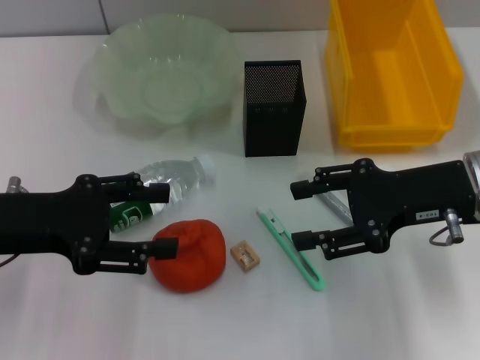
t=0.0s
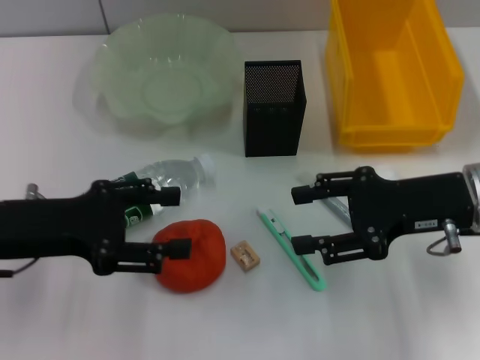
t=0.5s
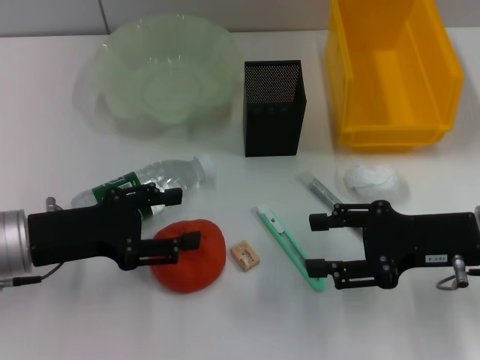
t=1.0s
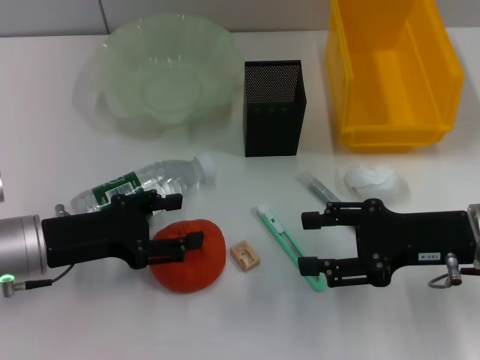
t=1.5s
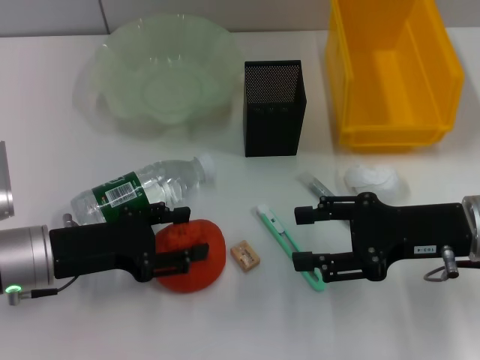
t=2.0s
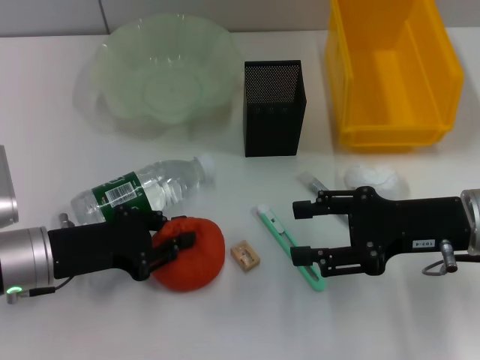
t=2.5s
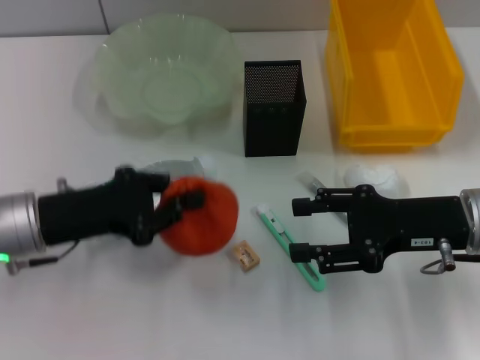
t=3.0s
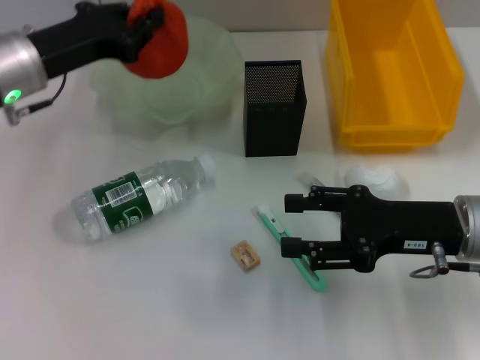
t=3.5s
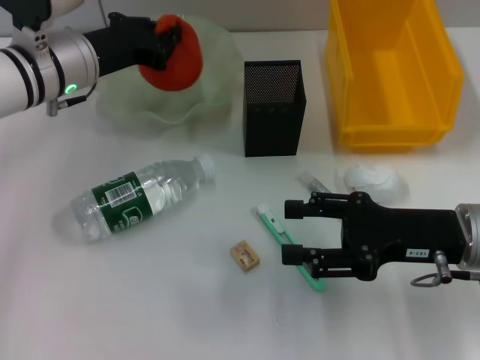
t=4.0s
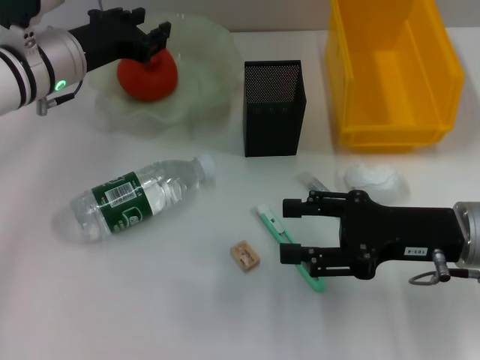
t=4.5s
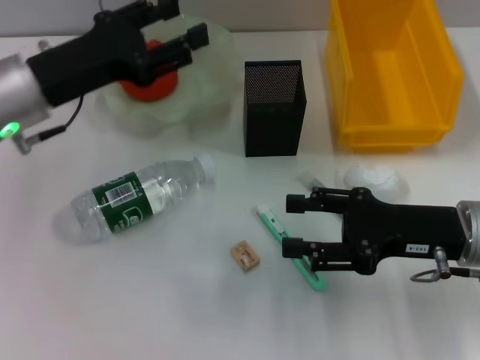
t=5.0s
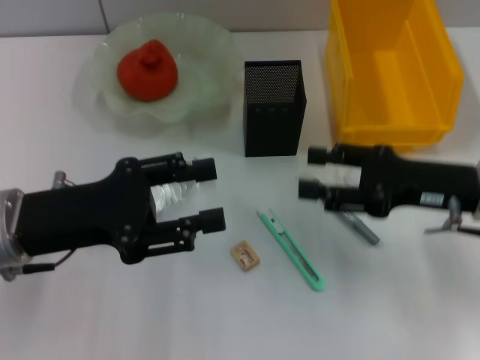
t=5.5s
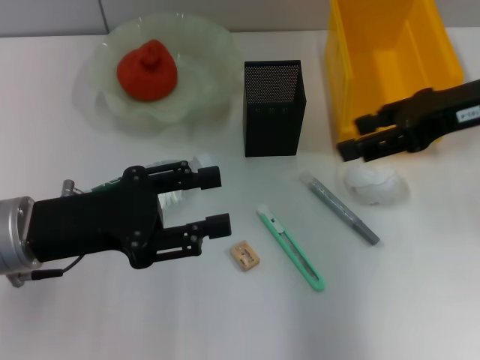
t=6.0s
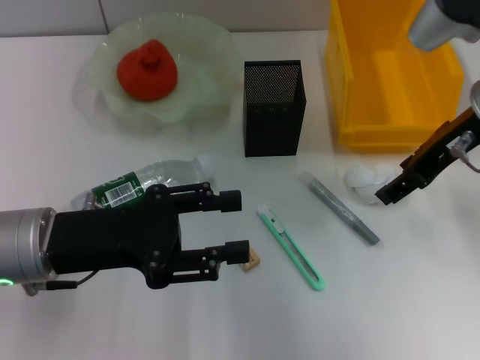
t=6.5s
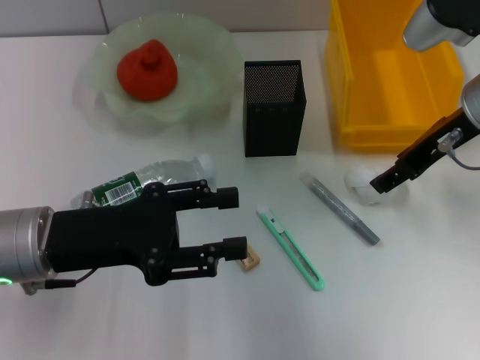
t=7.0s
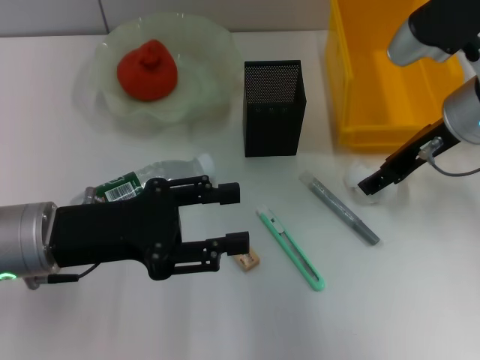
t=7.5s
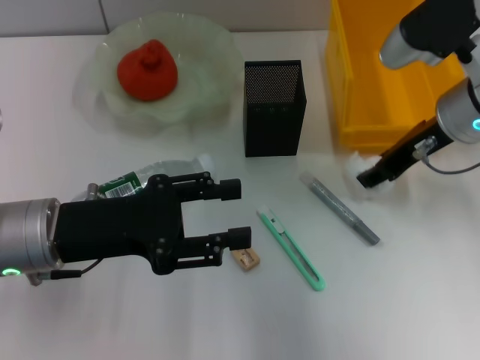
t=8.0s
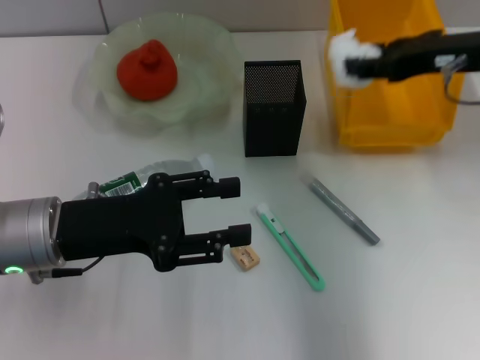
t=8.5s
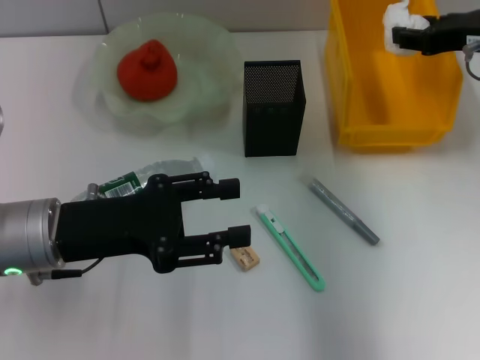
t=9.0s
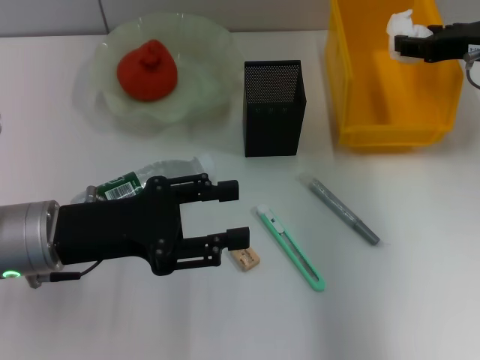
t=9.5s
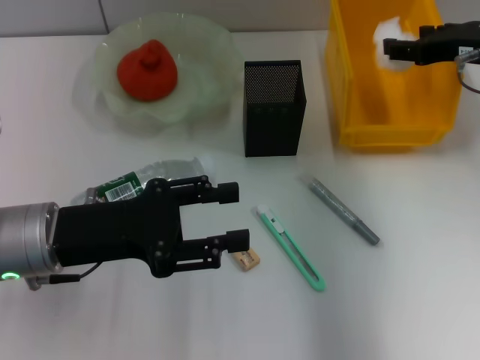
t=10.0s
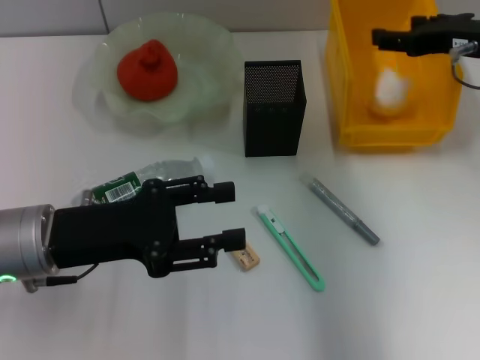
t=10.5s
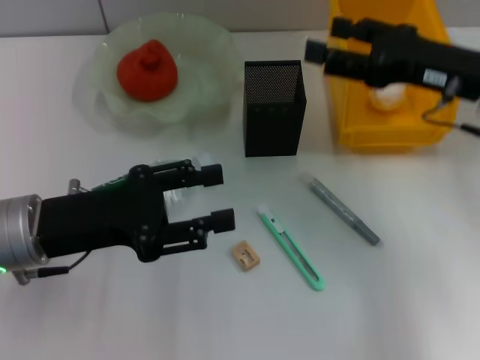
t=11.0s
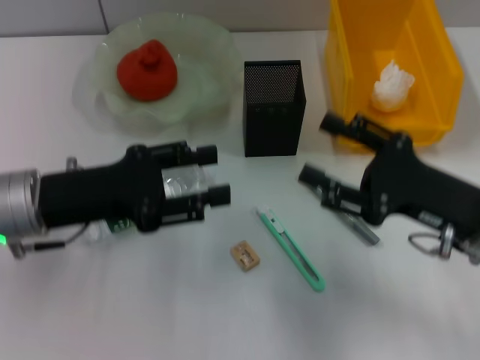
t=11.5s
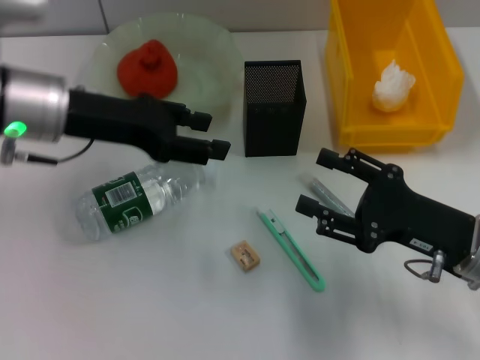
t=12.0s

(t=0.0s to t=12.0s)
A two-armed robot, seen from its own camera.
Step, t=0.0s - t=2.0s: Grab the orange with the left hand.
Step, t=2.5s - t=4.0s: Place the orange into the fruit bowl with the left hand.
Step, t=4.5s - t=7.5s: Grab the paper ball with the right hand.
Step, t=8.0s - t=10.5s: Place the paper ball into the trash can with the right hand.
t=0.0s - t=2.0s: The left gripper heads downward, covering about 10 cm.
t=2.0s - t=4.0s: The left gripper is displaced forward and upward by some 15 cm, and closes its fingers.
t=4.0s - t=6.0s: The left gripper shifts some 15 cm backward, and opens its fingers. Meanwhile the right gripper is displaced upward and forward by approximately 15 cm.
t=6.0s - t=8.0s: The right gripper moves downward, some 5 cm.
t=8.0s - t=10.0s: The right gripper is displaced to the right by some 5 cm.
t=10.0s - t=12.0s: The left gripper is displaced forward and upward by approximately 10 cm. The right gripper travels backward and downward by roughly 20 cm.

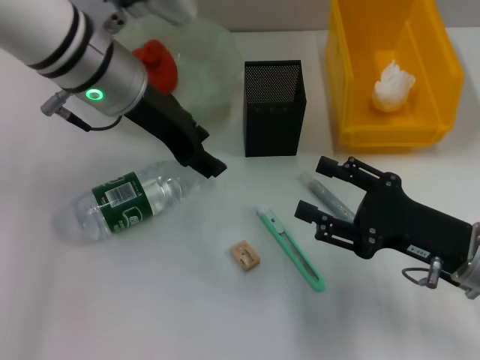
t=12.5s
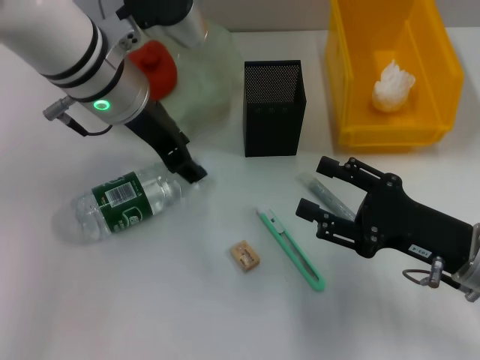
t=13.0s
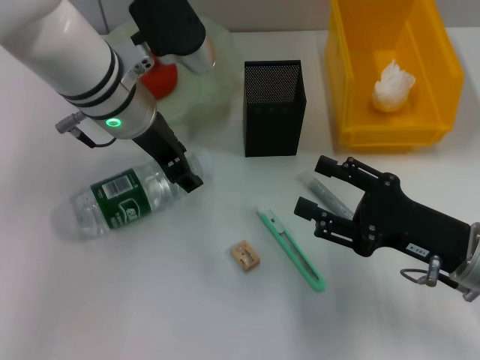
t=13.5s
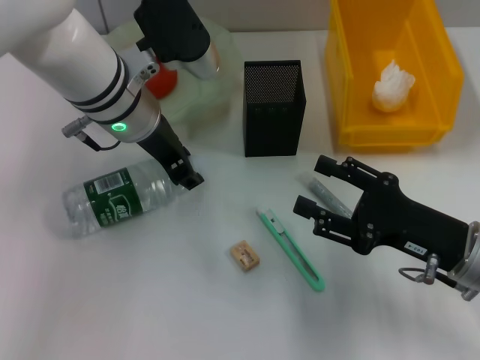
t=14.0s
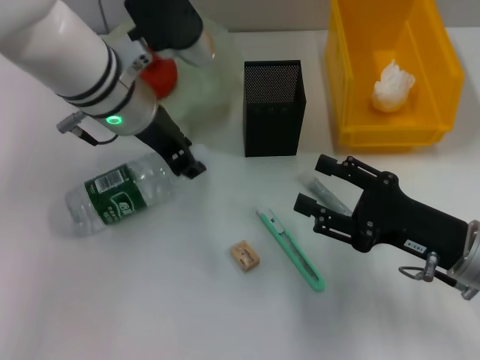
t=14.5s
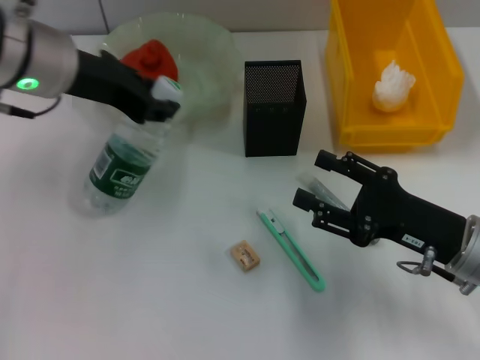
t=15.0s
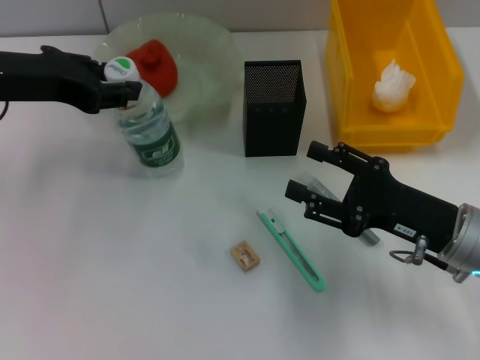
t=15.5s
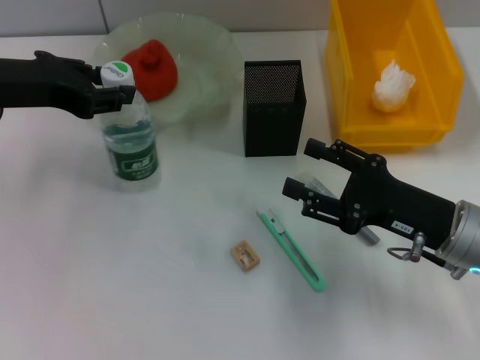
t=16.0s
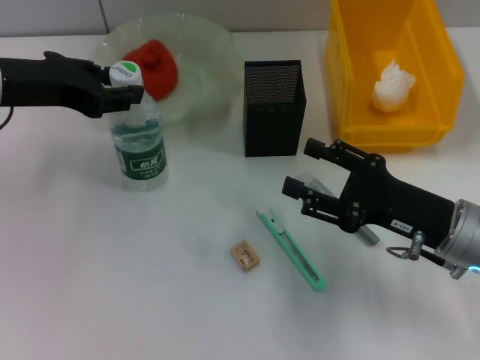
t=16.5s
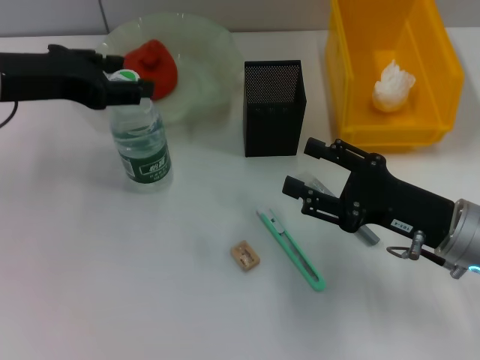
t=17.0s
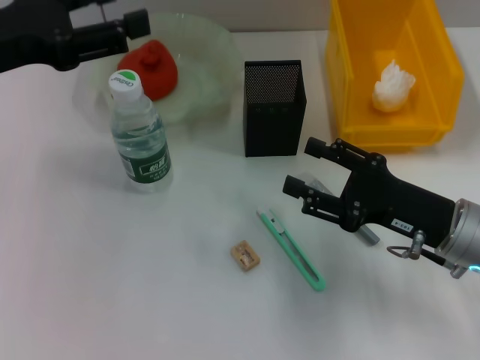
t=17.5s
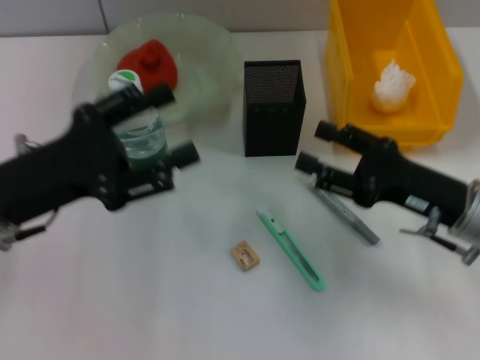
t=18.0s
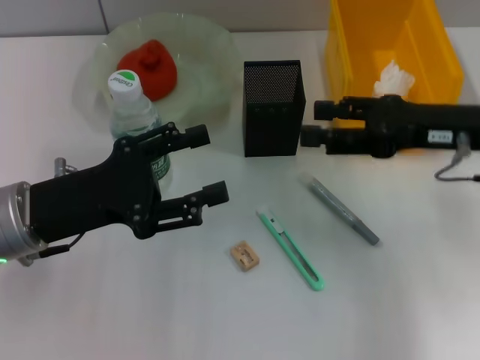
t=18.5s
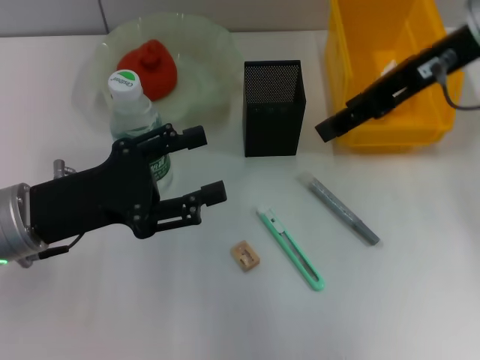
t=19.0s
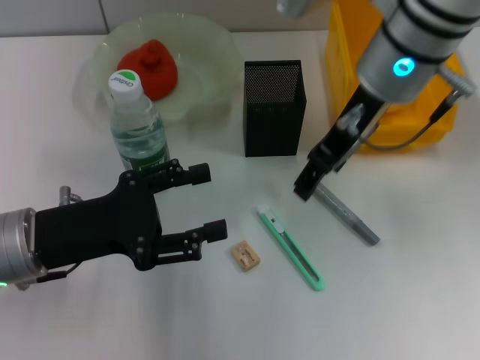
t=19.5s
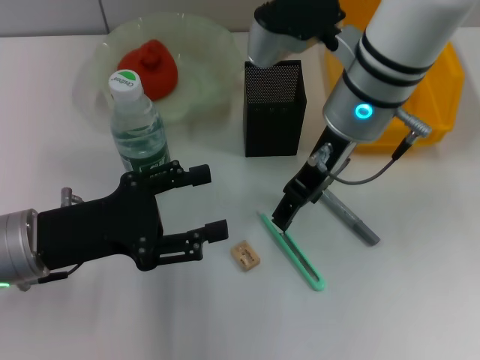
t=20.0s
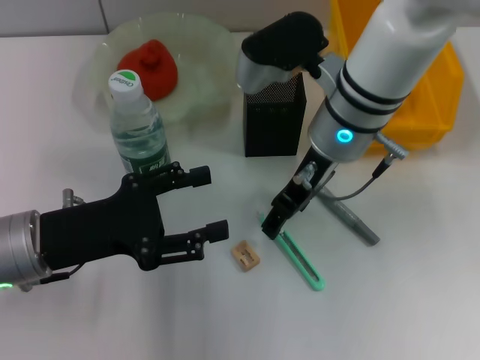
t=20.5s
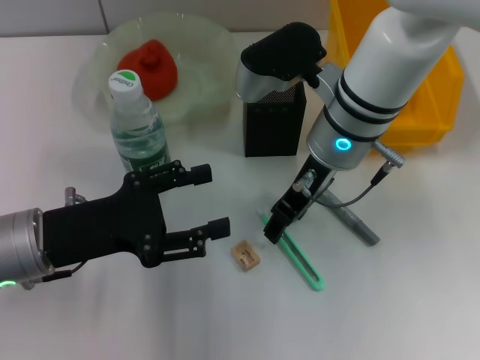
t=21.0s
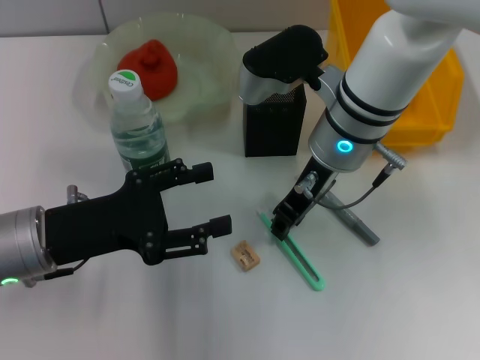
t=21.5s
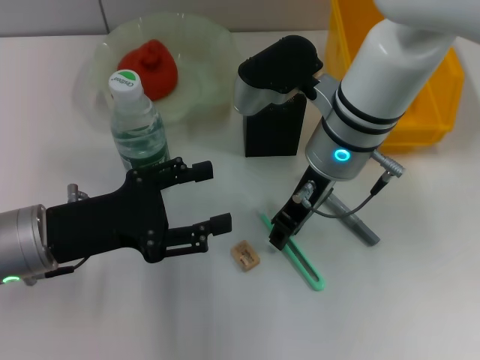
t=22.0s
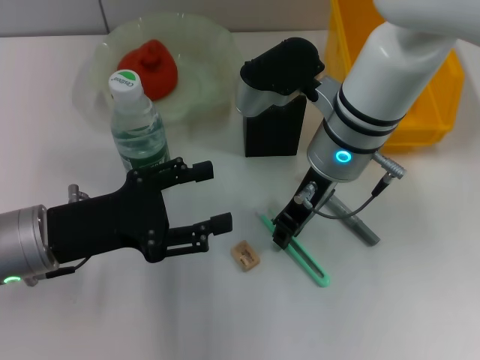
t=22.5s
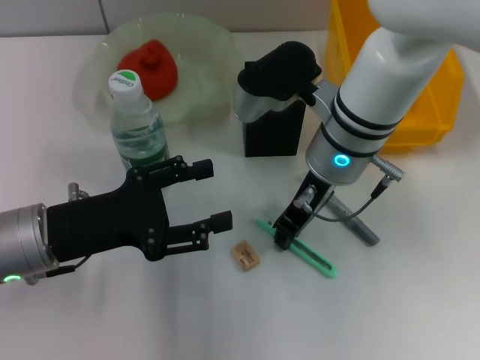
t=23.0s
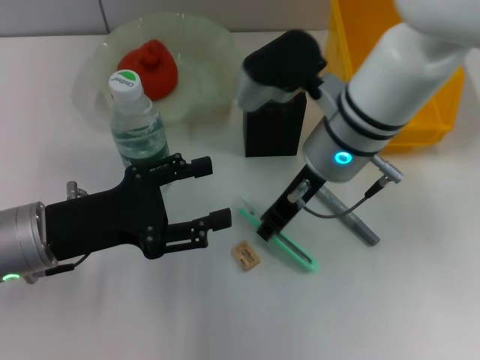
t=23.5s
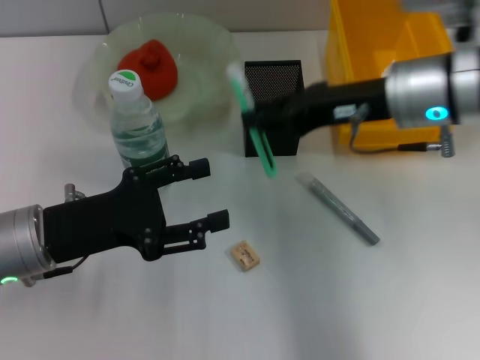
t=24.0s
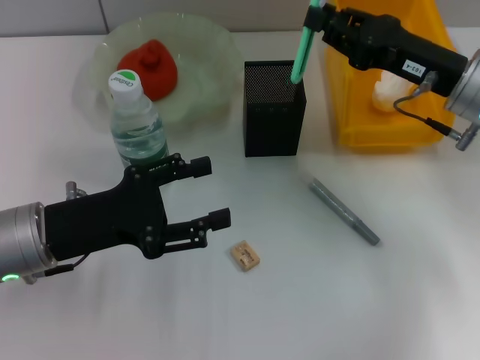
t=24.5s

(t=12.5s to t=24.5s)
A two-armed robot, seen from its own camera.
Step, t=14.5s - t=17.0s: Place the water bottle on the table with the left hand.
Step, t=17.5s - t=23.0s: Grab the blue utility knife with the right hand.
t=12.5s - t=14.5s: There are only small adjustments of the grippers.
t=14.5s - t=16.5s: The left gripper moves to the left, approximately 10 cm.
t=16.5s - t=18.5s: The right gripper moves upward and forward, about 10 cm; the left gripper goes roughly 15 cm downward and backward, and opens its fingers.
t=18.5s - t=20.5s: The right gripper moves to the left, about 15 cm.
t=20.5s - t=22.5s: The right gripper closes up.
t=22.5s - t=24.5s: The right gripper travels to the right by some 15 cm.

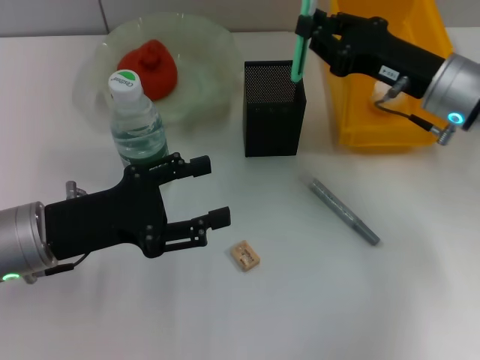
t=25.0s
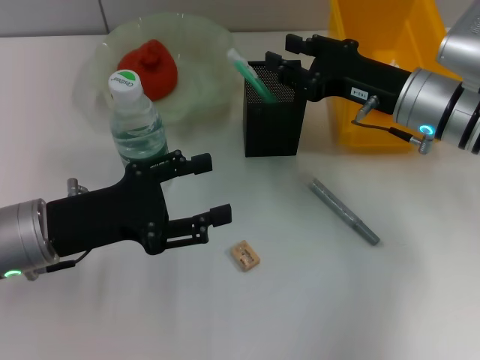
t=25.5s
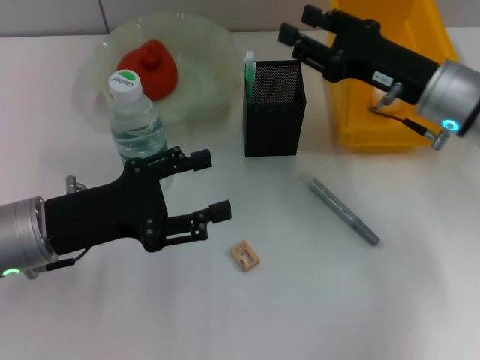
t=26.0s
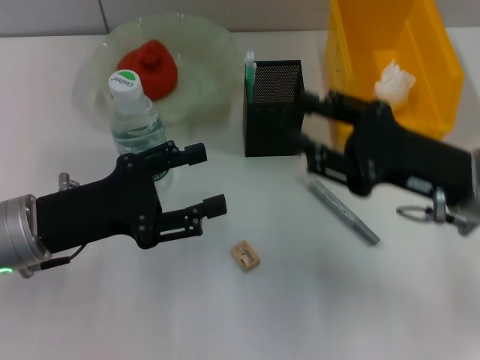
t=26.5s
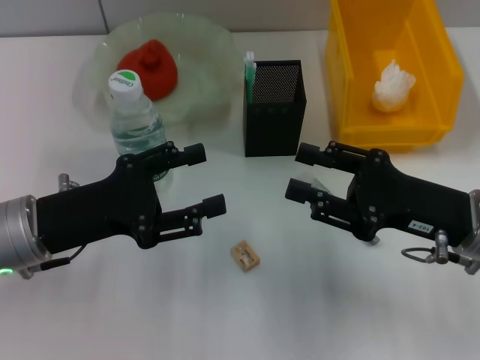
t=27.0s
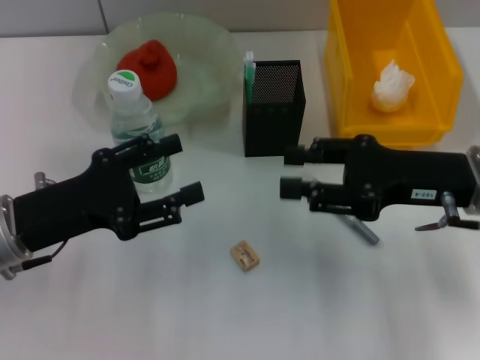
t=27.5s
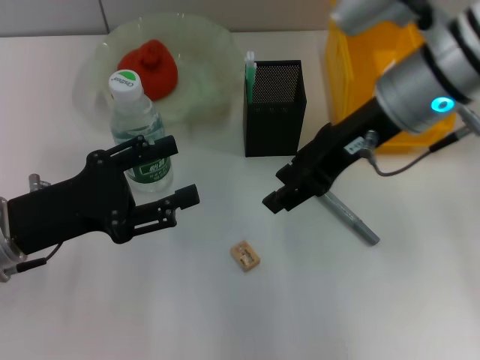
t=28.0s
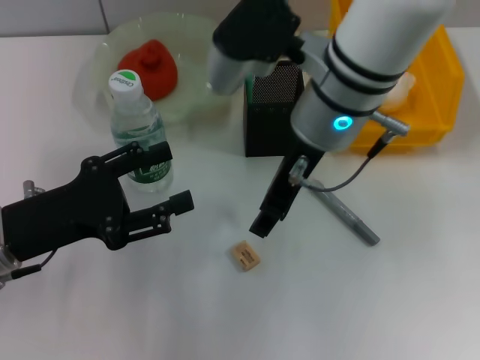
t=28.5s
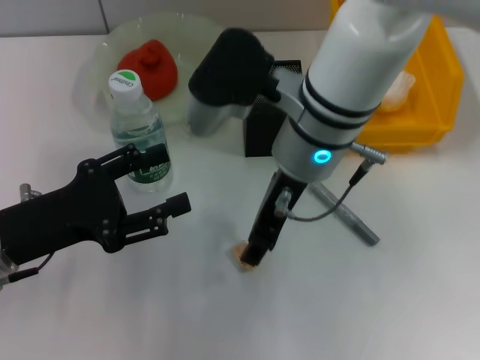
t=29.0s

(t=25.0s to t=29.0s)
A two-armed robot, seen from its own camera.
t=25.0s - t=27.0s: The right gripper is displaced backward by roughly 10 cm, and opens its fingers.
t=27.0s - t=29.0s: The right gripper travels to the left, upward and forward by approximately 20 cm.
